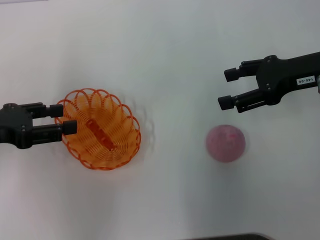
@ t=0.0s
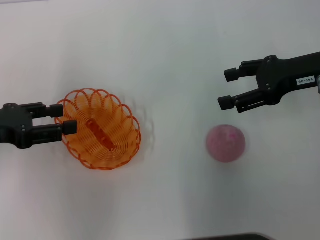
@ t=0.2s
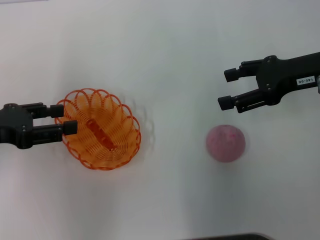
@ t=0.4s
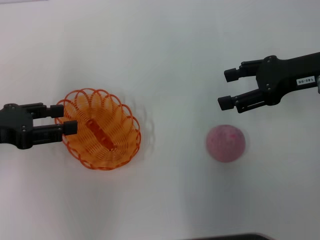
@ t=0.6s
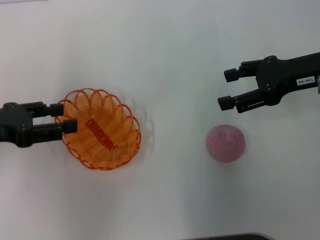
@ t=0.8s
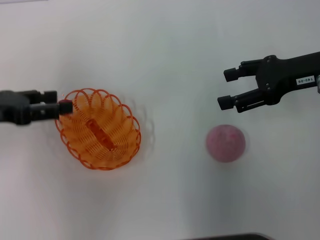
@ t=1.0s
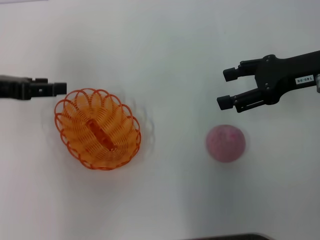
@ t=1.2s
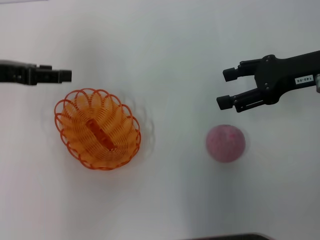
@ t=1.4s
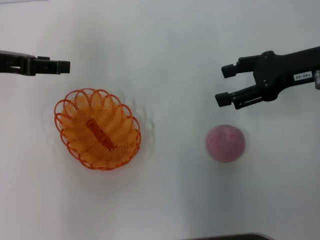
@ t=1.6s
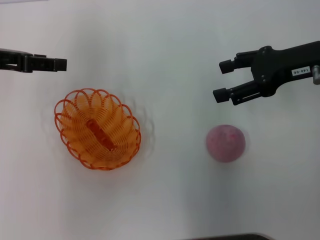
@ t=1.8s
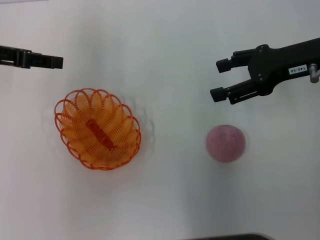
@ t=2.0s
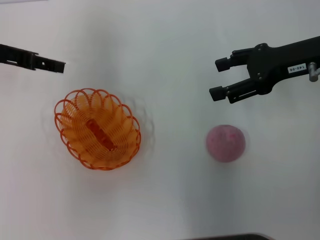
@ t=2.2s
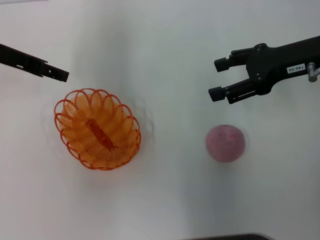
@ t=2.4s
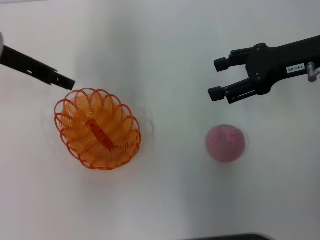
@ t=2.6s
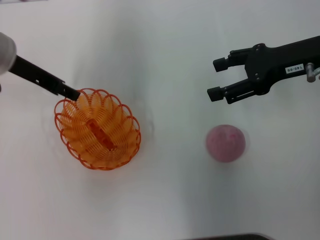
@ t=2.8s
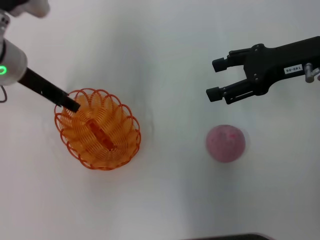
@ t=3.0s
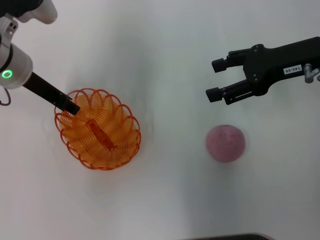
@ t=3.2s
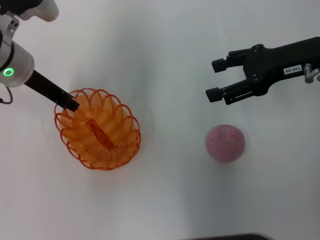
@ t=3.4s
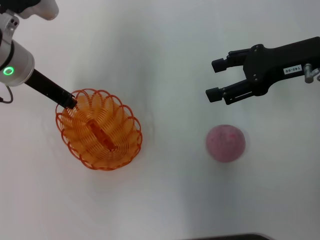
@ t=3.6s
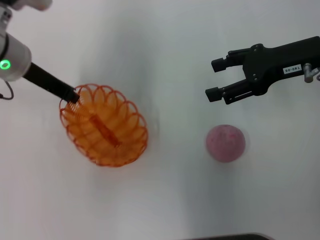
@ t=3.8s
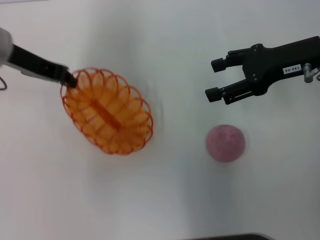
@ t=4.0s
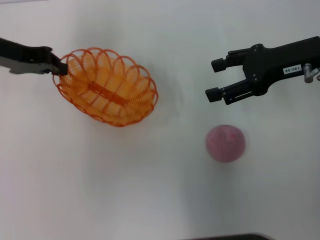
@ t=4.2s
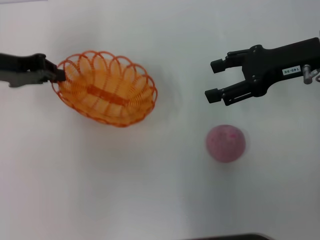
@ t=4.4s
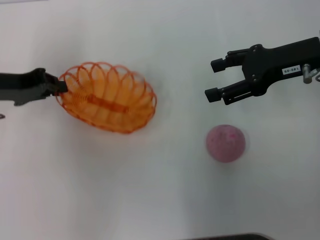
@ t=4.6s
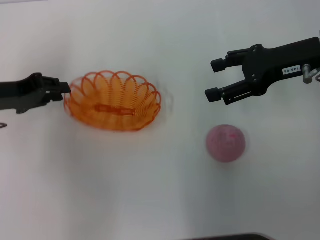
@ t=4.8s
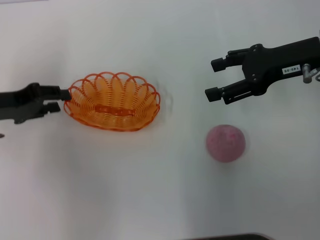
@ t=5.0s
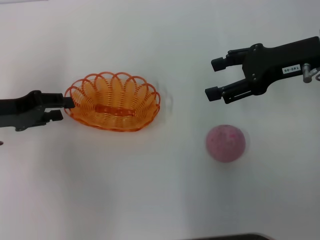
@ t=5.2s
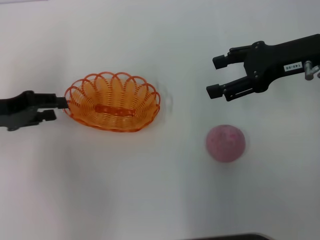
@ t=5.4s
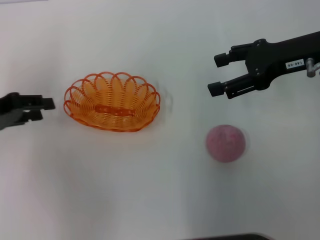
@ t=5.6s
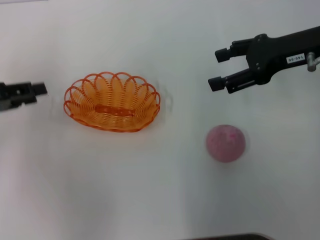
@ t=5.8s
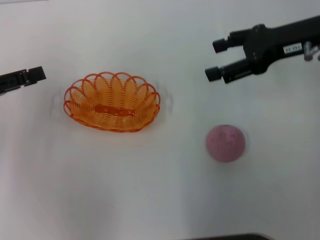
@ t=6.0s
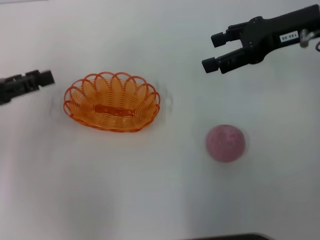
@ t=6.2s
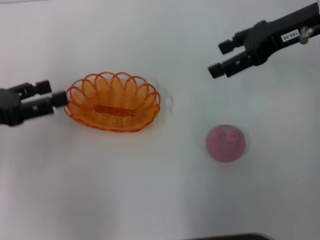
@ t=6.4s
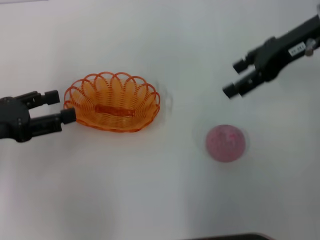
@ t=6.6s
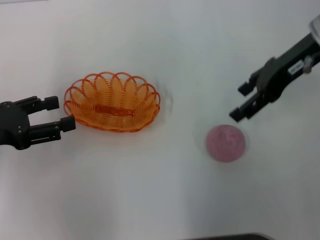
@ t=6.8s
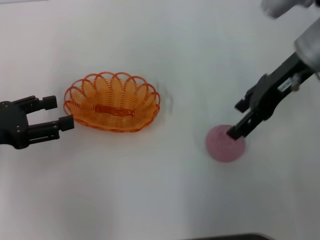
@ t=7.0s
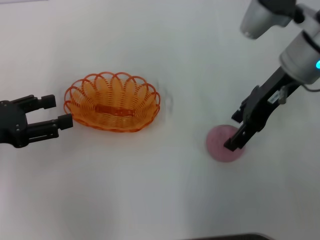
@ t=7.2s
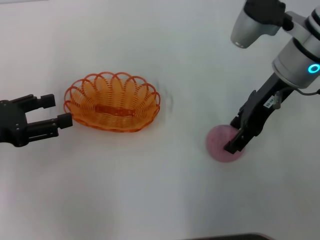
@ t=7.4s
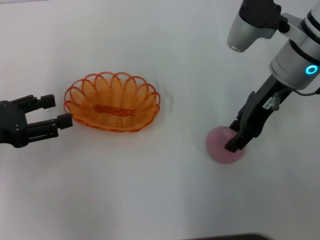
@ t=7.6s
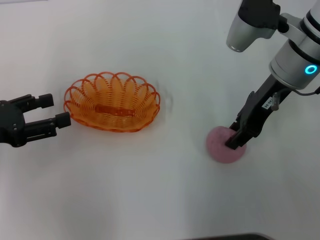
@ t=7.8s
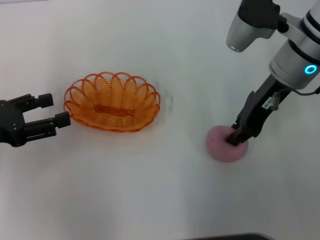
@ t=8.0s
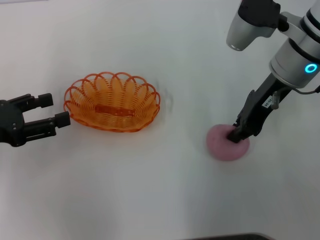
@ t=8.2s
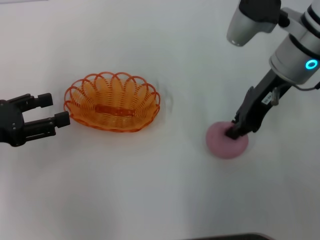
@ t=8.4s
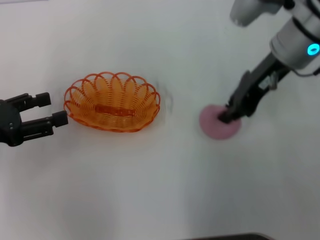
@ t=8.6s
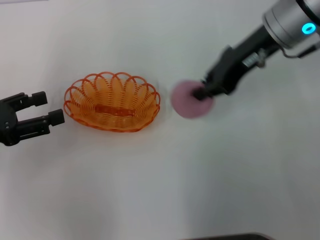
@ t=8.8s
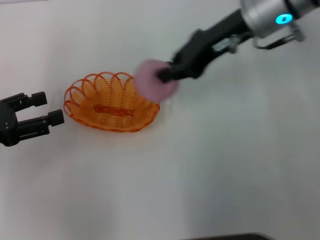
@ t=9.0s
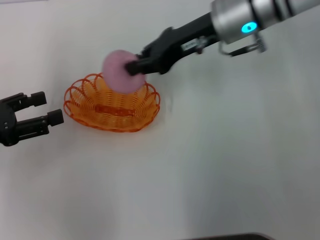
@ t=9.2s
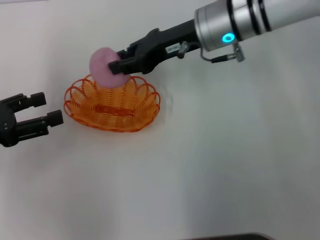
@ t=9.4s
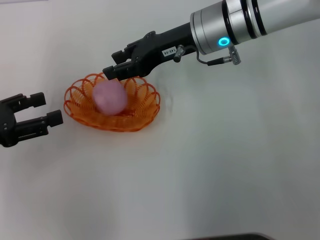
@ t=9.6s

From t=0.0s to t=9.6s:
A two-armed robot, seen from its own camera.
Step, from t=0.0s to t=4.0s: Pick up the basket with the left gripper.
Step, from t=4.2s to t=5.2s: Place the basket in the center of view with the left gripper.
Step, from t=5.4s to t=8.6s: Pick up the peach with the right gripper.
From t=0.0s to t=1.6s: The left gripper shifts some 10 cm forward.
From t=1.6s to t=3.2s: The left gripper heads to the right, covering approximately 10 cm.
From t=3.2s to t=4.8s: The left gripper moves to the left and backward, roughly 10 cm, and closes.
From t=4.8s to t=6.4s: The right gripper changes place by approximately 5 cm. Meanwhile the left gripper goes roughly 5 cm backward, and opens.
From t=6.4s to t=8.0s: The right gripper heads to the left, covering some 5 cm, and closes.
From t=8.0s to t=9.6s: The right gripper is displaced to the left by approximately 10 cm.

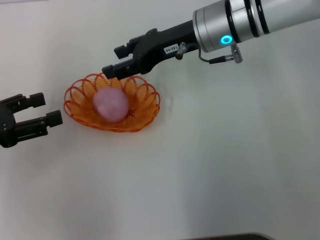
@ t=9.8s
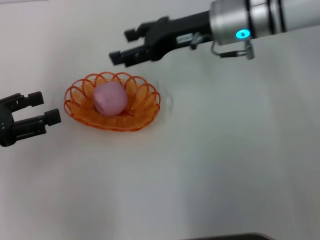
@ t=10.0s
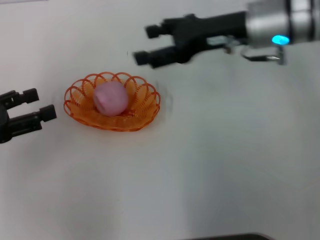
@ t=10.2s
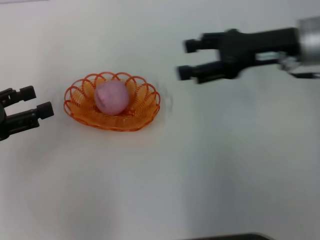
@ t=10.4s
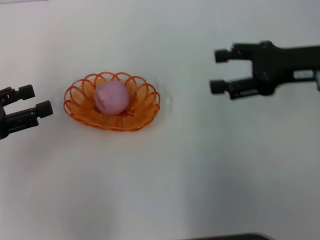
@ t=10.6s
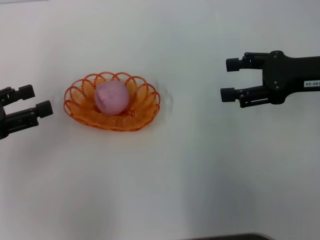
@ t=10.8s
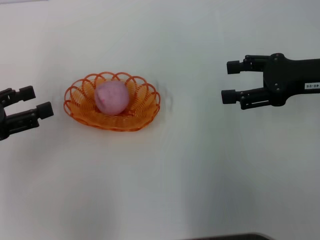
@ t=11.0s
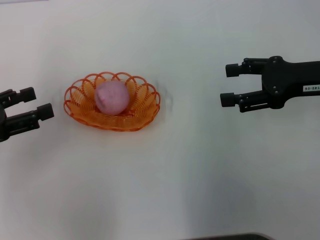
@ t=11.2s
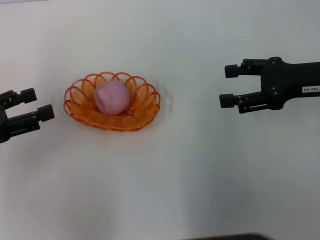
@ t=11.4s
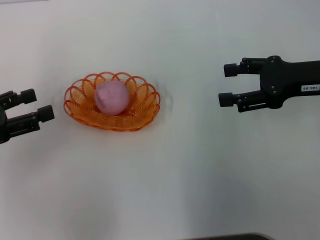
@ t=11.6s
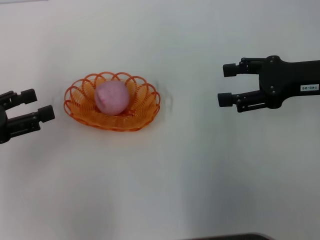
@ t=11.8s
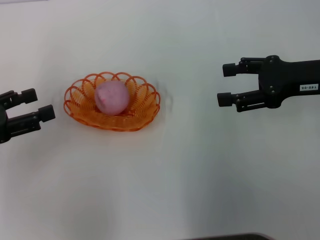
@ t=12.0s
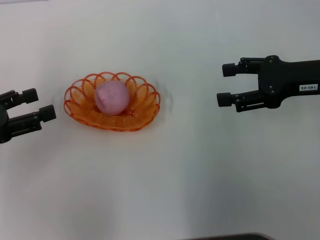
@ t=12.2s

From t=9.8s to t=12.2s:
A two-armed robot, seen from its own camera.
From t=9.8s to t=11.0s: The right gripper goes some 20 cm to the right and backward, and opens its fingers.
From t=11.0s to t=12.2s: Both grippers stay put.

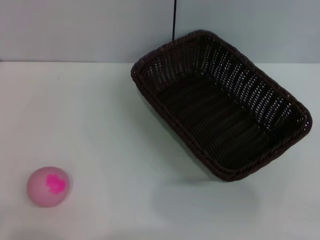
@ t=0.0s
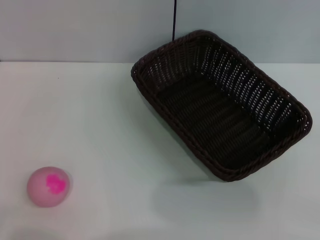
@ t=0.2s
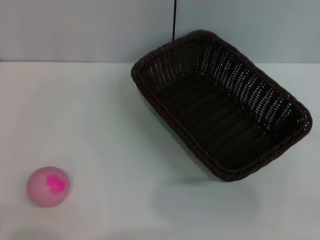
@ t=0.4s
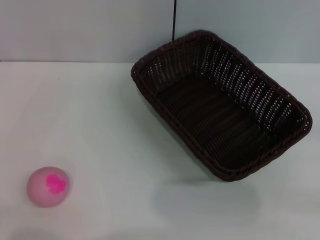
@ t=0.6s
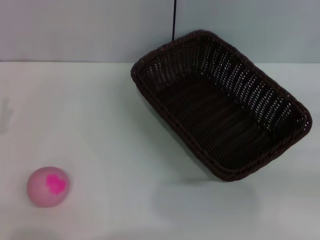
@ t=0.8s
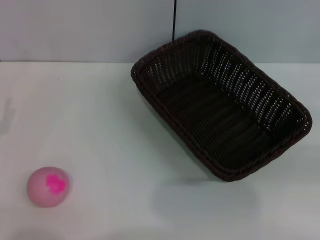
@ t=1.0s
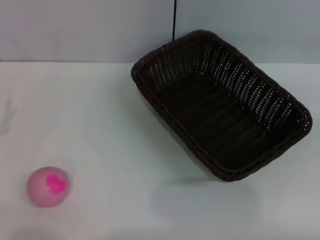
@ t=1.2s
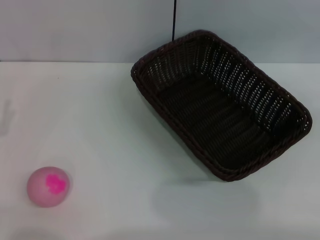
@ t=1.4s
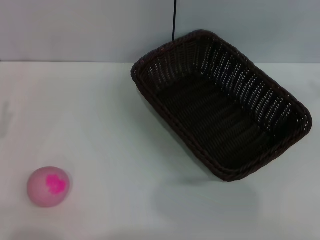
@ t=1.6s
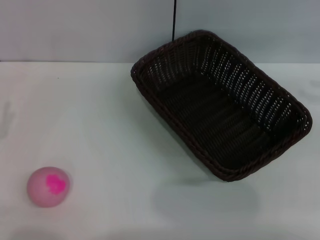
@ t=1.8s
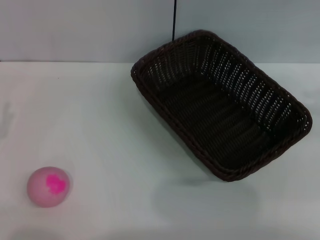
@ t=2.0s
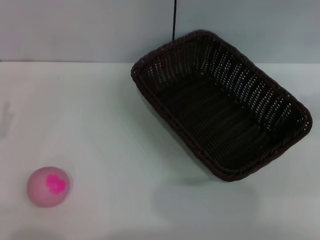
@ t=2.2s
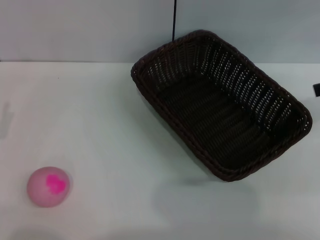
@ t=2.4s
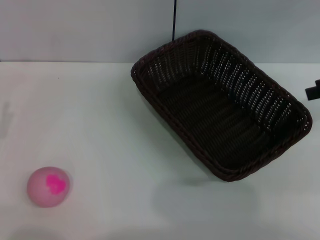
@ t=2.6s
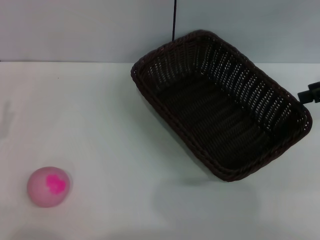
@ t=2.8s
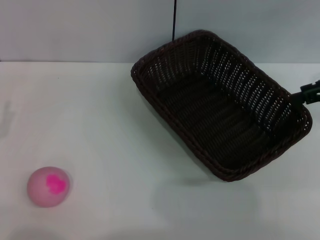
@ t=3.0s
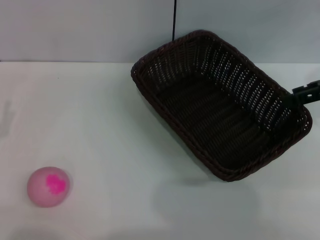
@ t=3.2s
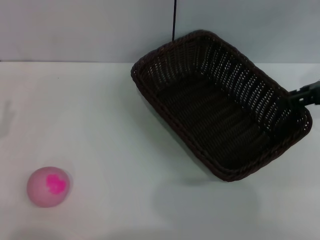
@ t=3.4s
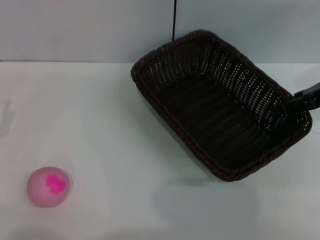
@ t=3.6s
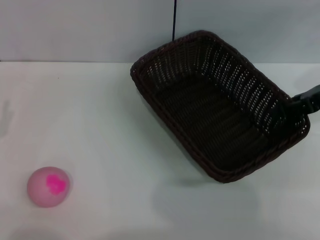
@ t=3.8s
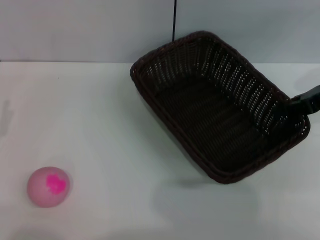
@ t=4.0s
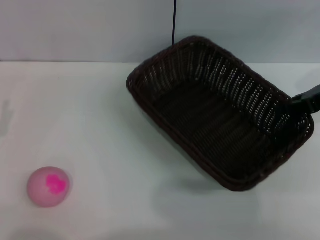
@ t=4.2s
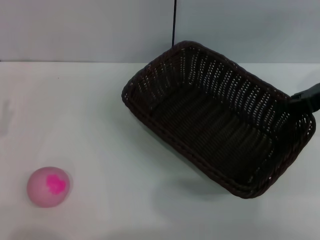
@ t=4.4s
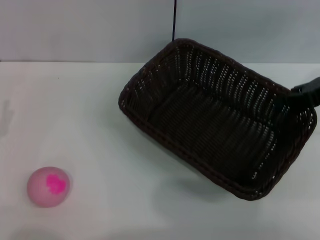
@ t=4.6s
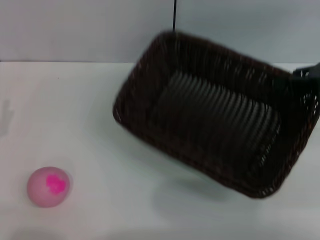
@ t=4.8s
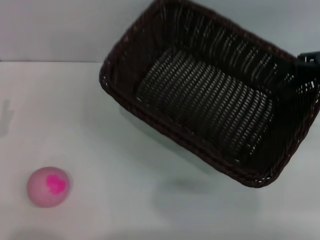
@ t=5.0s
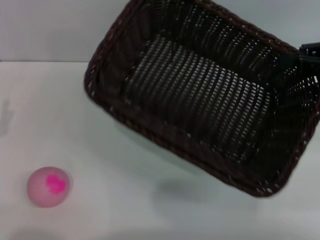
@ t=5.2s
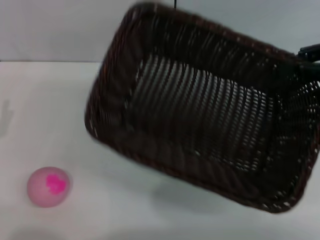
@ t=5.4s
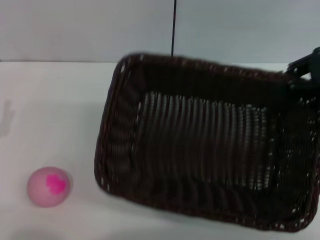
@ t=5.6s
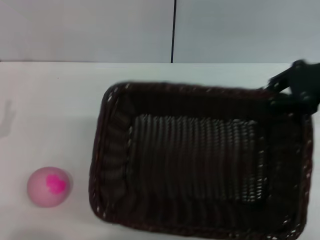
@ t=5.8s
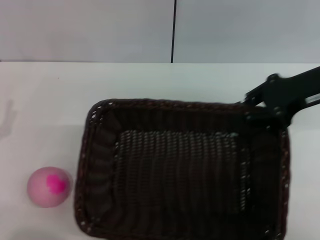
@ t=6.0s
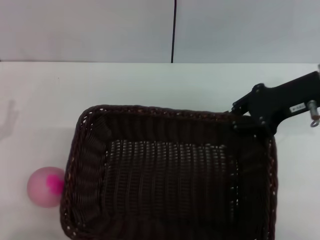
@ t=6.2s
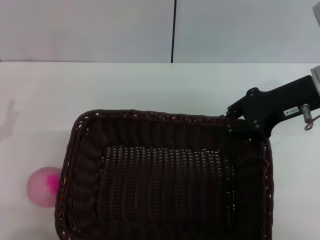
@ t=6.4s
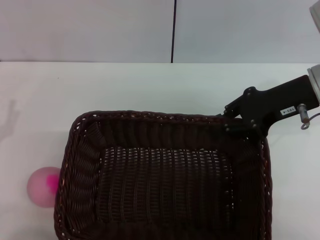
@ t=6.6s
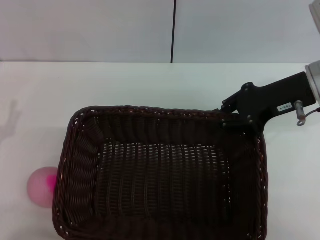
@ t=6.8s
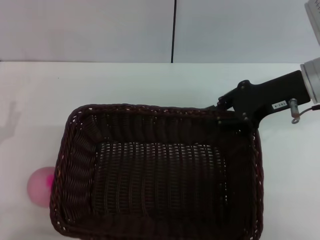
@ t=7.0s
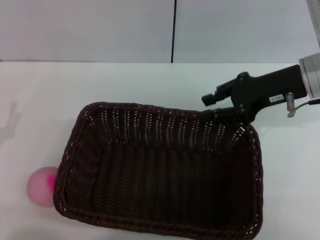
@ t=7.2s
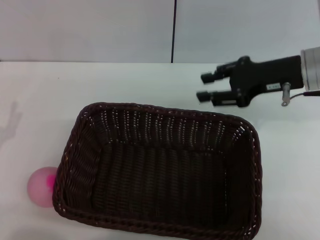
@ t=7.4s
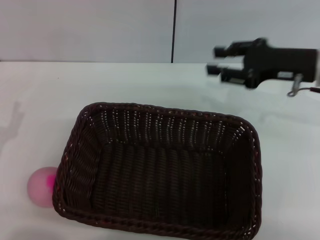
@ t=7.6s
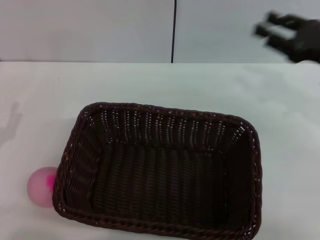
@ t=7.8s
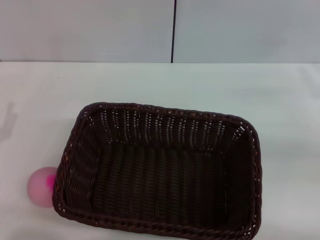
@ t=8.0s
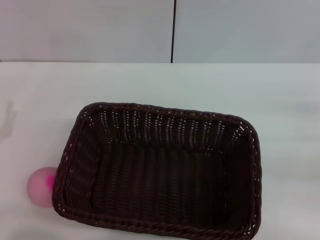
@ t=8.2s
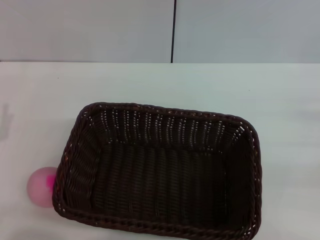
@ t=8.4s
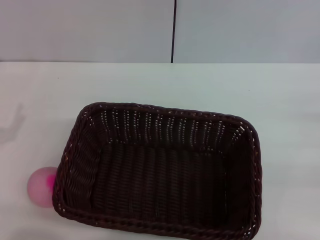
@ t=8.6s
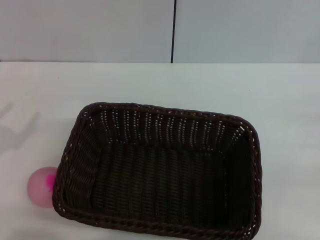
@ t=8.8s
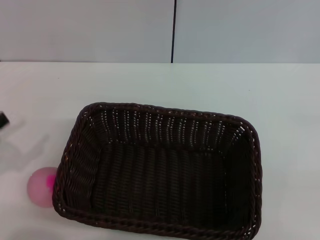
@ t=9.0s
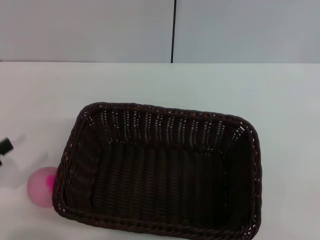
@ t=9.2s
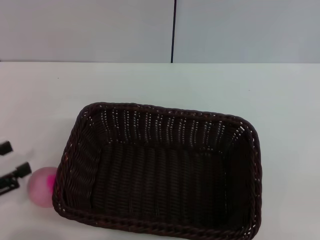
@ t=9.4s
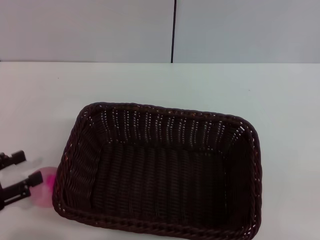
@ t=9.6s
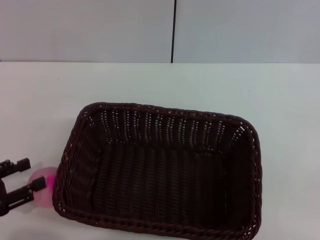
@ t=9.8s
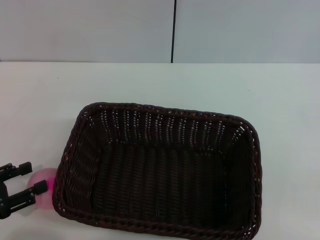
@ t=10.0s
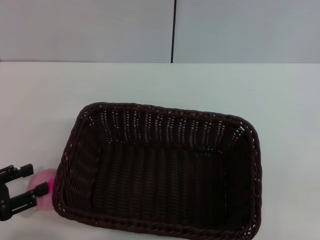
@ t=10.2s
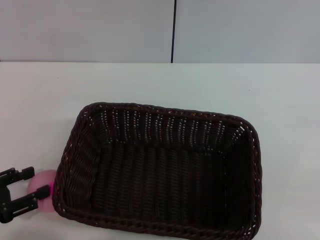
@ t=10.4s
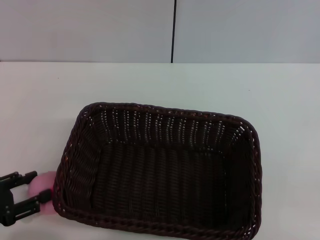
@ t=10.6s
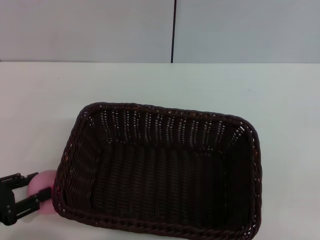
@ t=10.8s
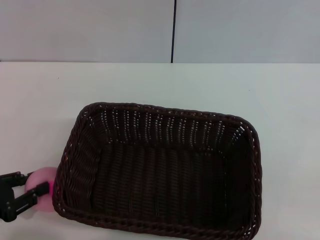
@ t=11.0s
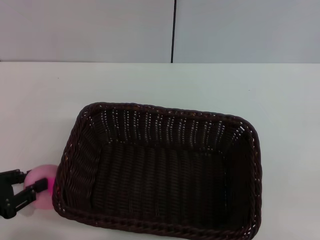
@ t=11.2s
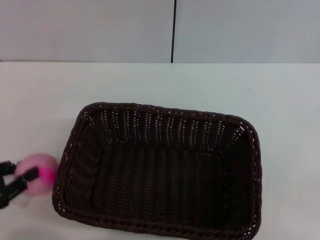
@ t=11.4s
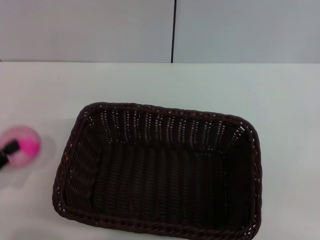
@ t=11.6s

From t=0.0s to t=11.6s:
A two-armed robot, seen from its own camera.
Step, from t=0.0s to t=4.6s: Pick up the dark basket with the right gripper.
Step, from t=4.8s to t=7.2s: Place the dark basket in the center of view with the right gripper.
Step, from t=7.4s to t=11.4s: Pick up the peach with the left gripper.
From t=2.8s to t=4.4s: The right gripper shifts by approximately 5 cm, and closes up.
From t=4.4s to t=5.8s: The right gripper ends up some 5 cm from where it was.
From t=5.8s to t=7.2s: The right gripper is displaced to the left by about 5 cm.
From t=7.2s to t=8.8s: The left gripper travels to the left by approximately 5 cm. The right gripper heads to the right, backward and downward, covering some 25 cm, and opens its fingers.
From t=10.2s to t=11.6s: The left gripper closes.
